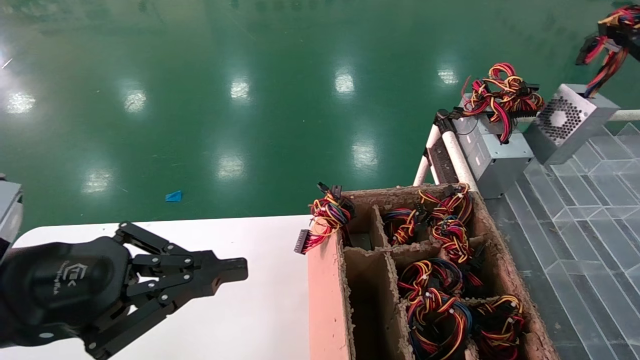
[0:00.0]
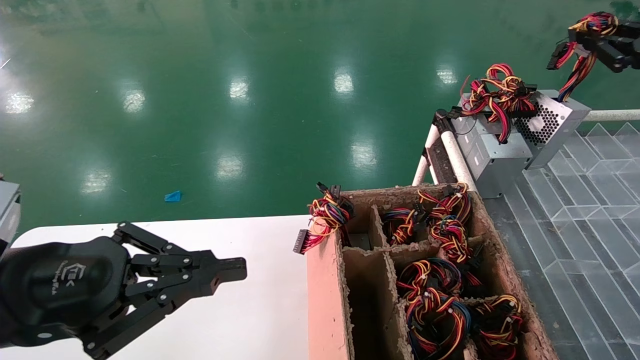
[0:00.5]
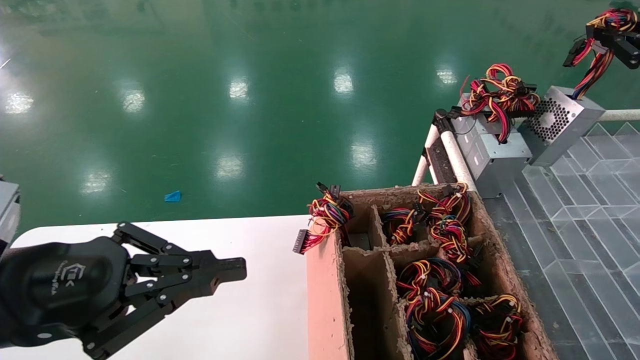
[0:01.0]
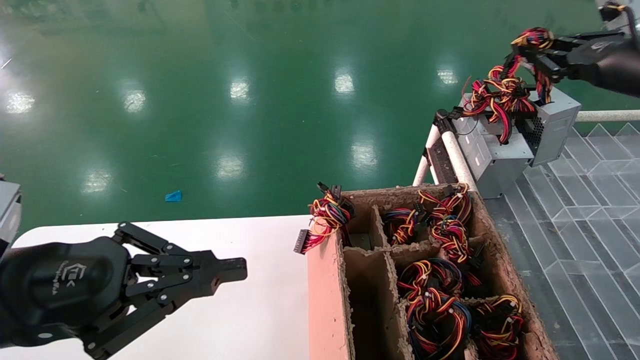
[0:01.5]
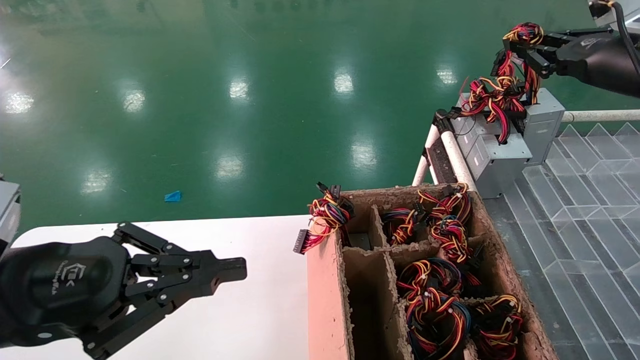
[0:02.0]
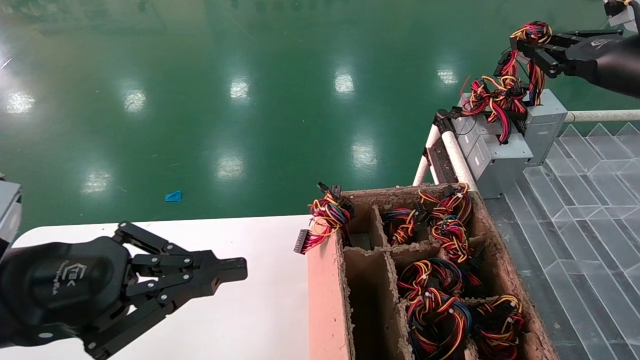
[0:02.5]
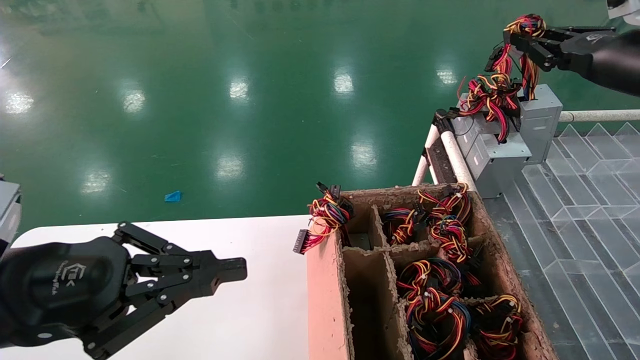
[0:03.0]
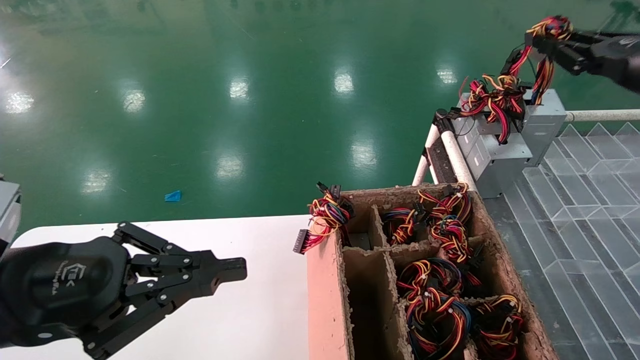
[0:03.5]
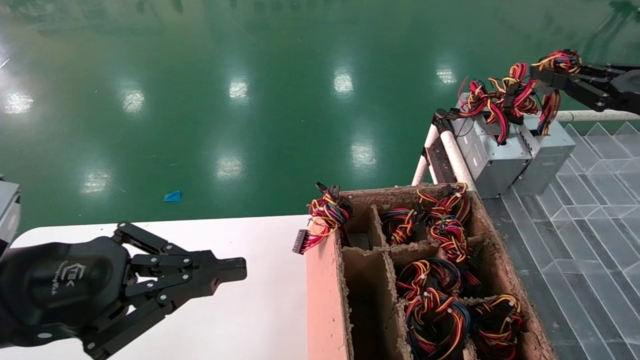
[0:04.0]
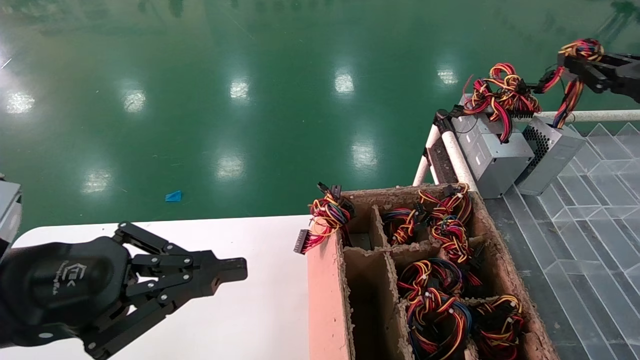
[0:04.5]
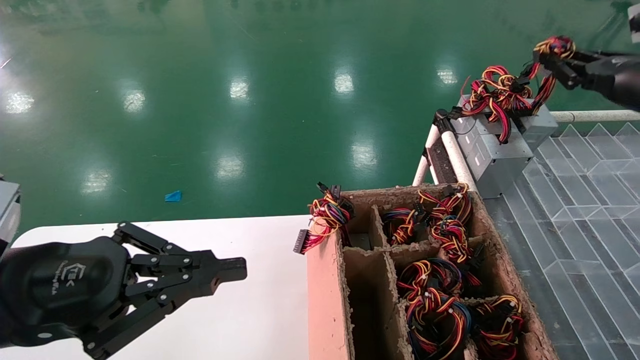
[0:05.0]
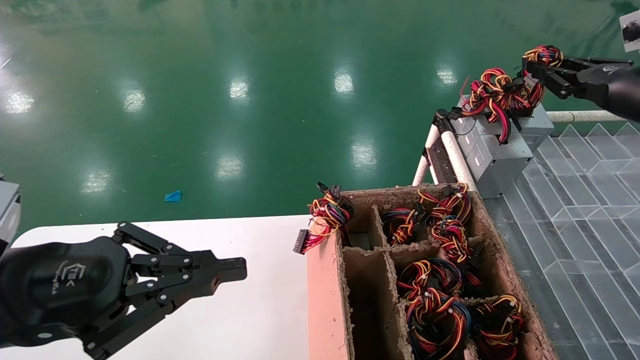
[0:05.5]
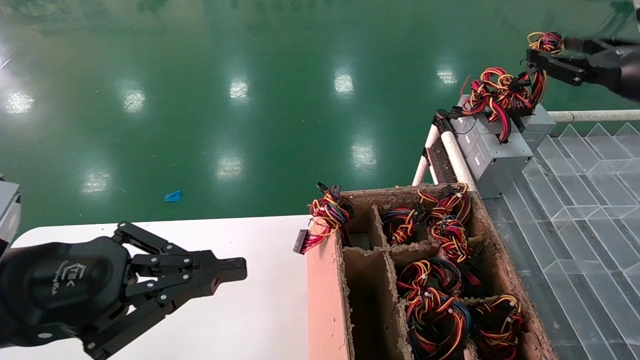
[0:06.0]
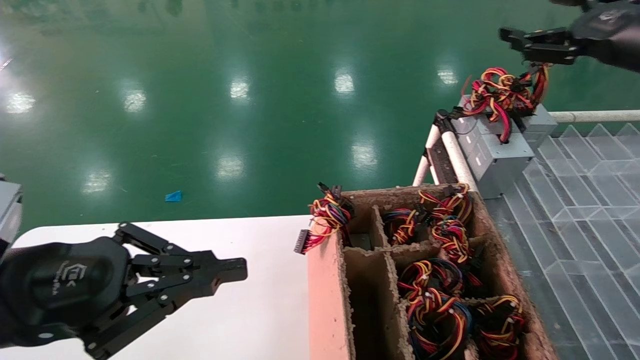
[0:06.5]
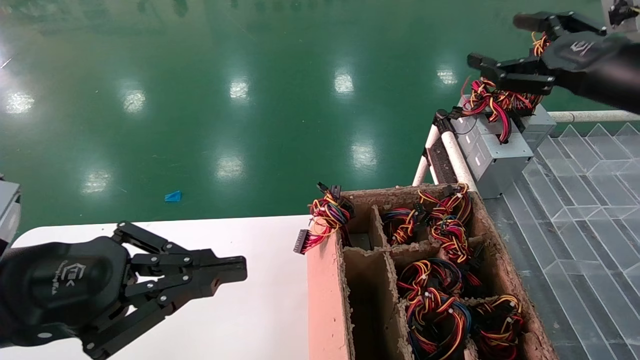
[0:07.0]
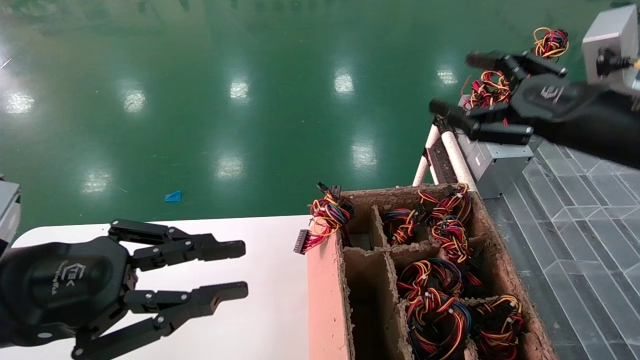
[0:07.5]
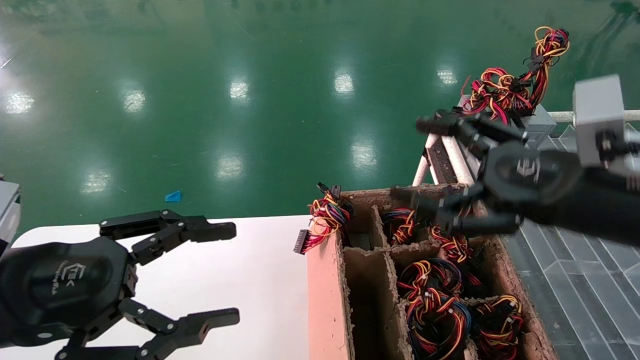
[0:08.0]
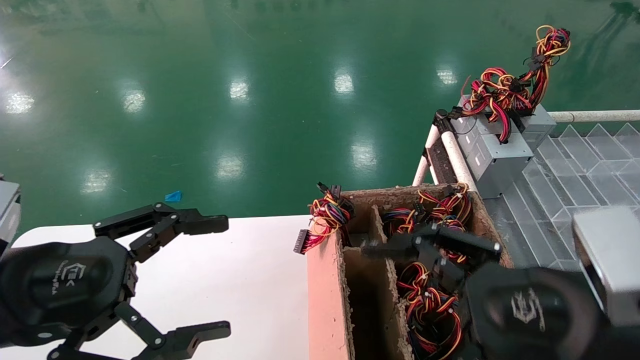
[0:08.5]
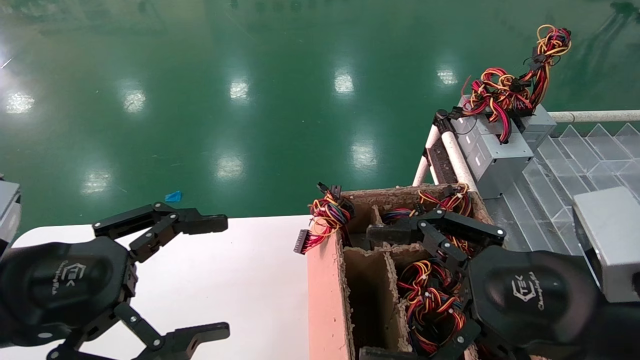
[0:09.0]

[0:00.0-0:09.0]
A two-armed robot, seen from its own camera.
Step, 0:00.0 to 0:07.0: Place the main unit power supply in the designated area.
0:00.0 to 0:02.0: The right gripper is displaced to the left and forward by some 10 cm.
0:02.0 to 0:04.5: The right gripper shifts approximately 5 cm to the right.
0:04.5 to 0:07.0: The right gripper goes approximately 10 cm to the left, and opens.
0:07.0 to 0:09.0: The left gripper opens its fingers, while the right gripper travels backward, downward and to the left by some 25 cm.
